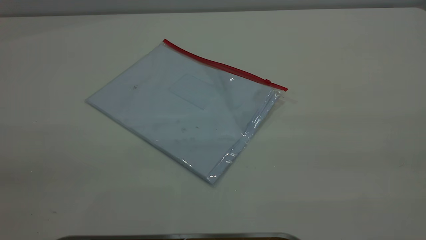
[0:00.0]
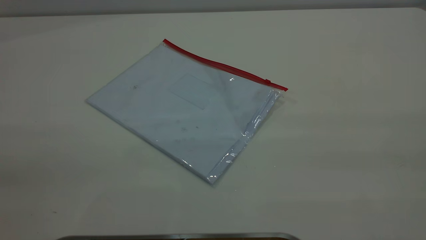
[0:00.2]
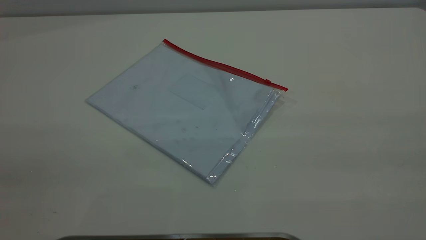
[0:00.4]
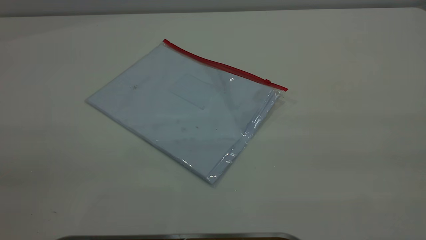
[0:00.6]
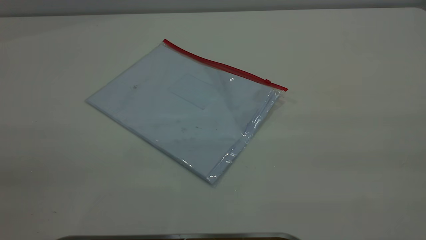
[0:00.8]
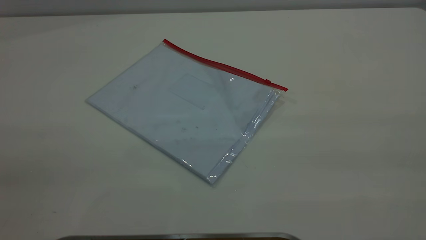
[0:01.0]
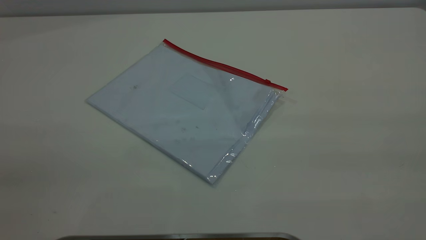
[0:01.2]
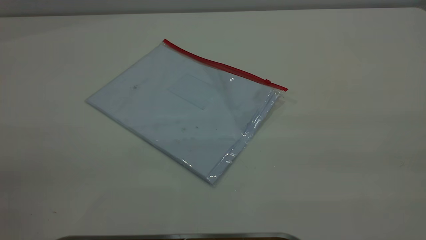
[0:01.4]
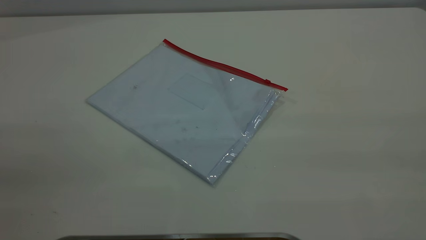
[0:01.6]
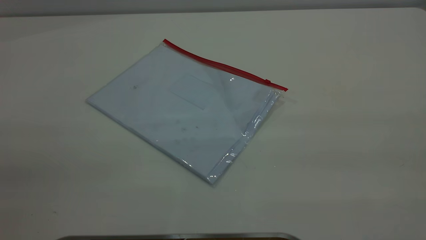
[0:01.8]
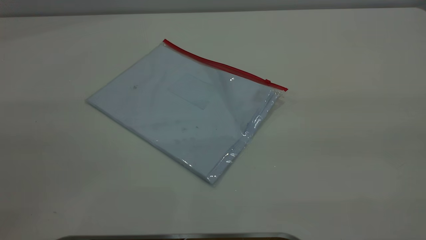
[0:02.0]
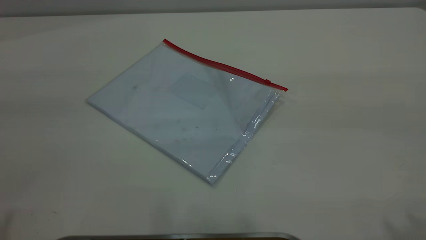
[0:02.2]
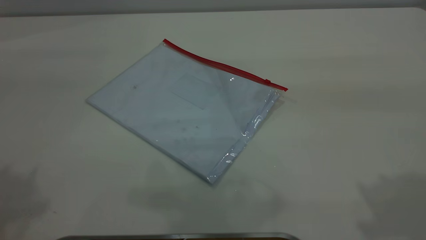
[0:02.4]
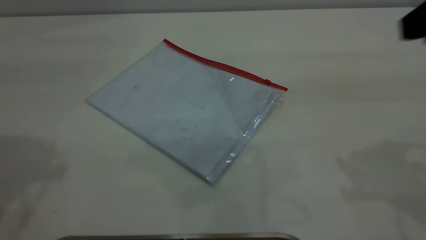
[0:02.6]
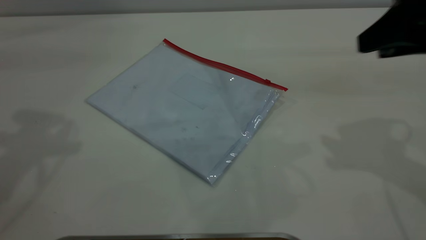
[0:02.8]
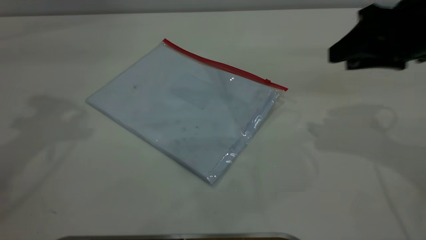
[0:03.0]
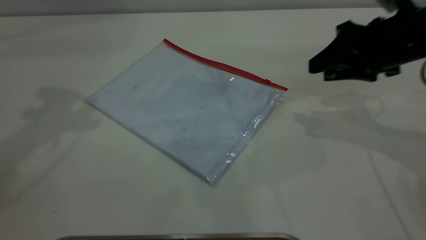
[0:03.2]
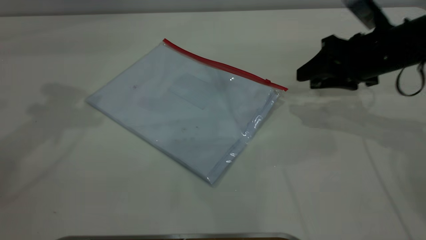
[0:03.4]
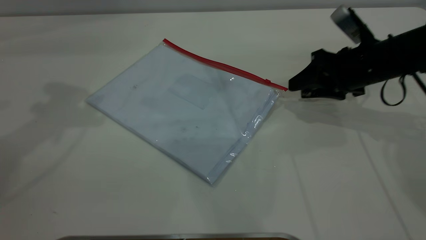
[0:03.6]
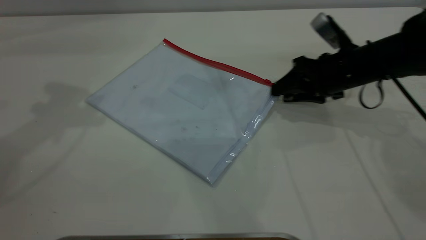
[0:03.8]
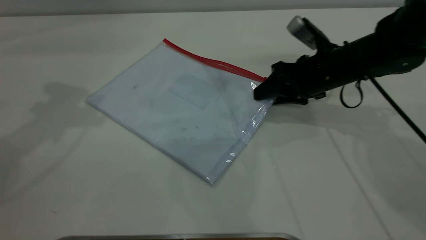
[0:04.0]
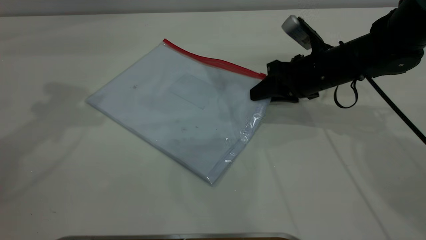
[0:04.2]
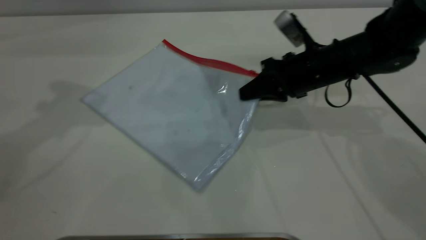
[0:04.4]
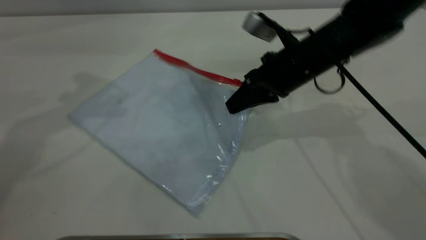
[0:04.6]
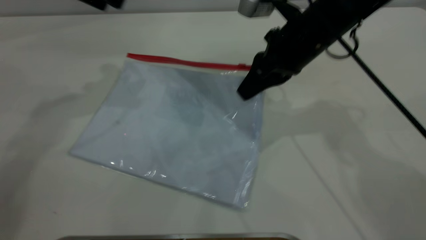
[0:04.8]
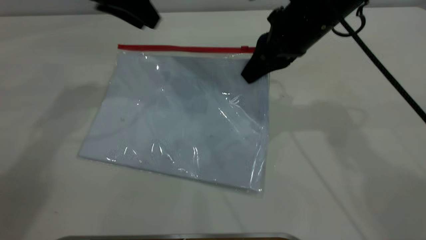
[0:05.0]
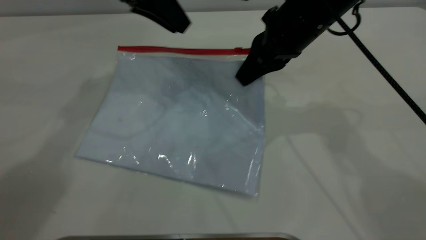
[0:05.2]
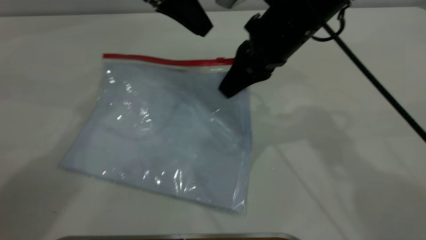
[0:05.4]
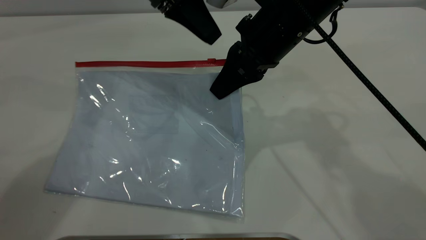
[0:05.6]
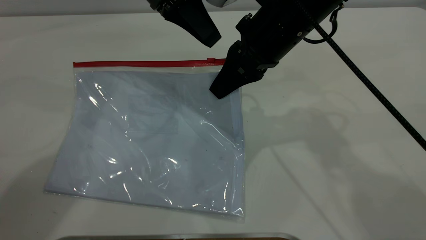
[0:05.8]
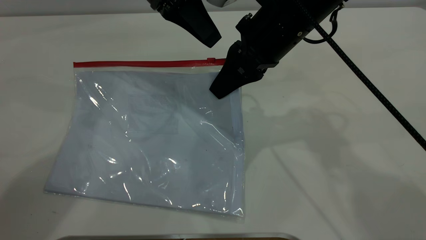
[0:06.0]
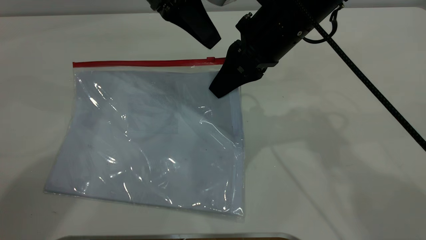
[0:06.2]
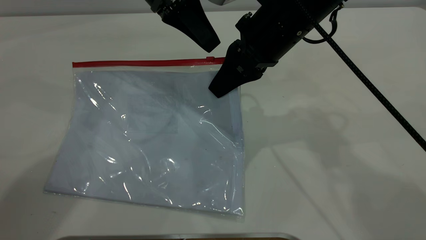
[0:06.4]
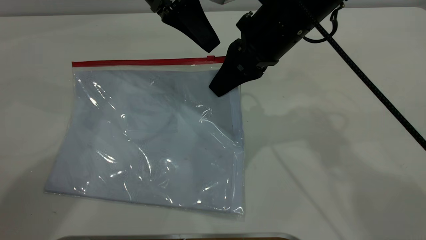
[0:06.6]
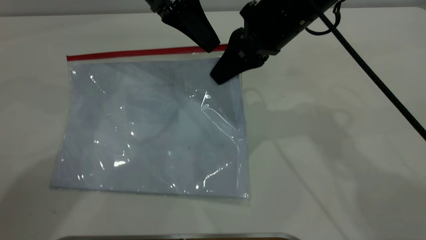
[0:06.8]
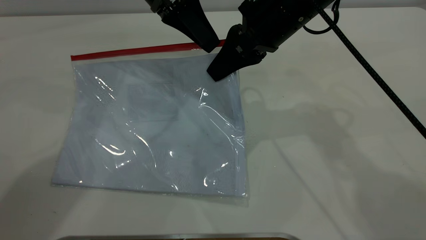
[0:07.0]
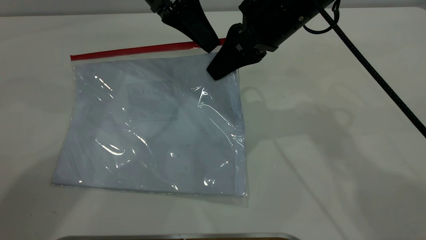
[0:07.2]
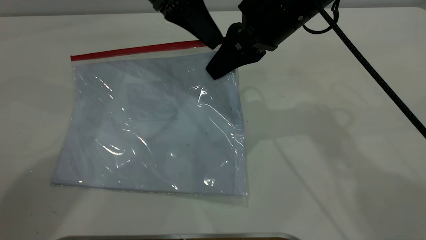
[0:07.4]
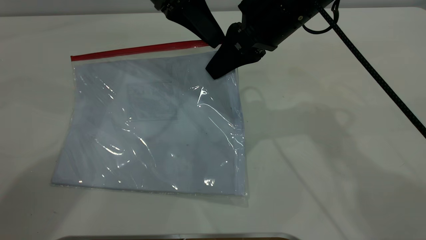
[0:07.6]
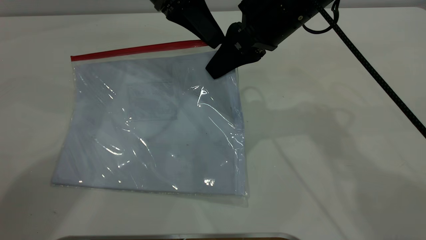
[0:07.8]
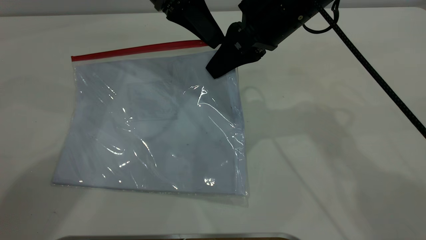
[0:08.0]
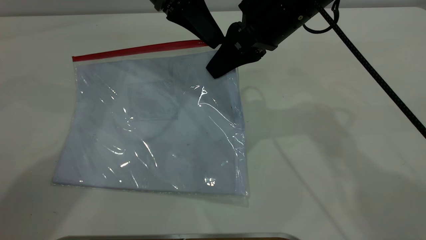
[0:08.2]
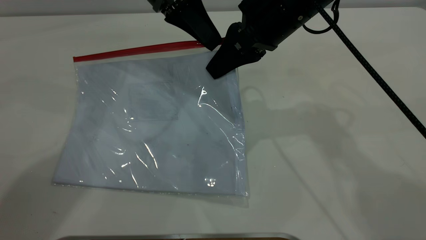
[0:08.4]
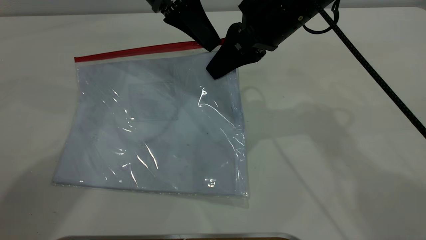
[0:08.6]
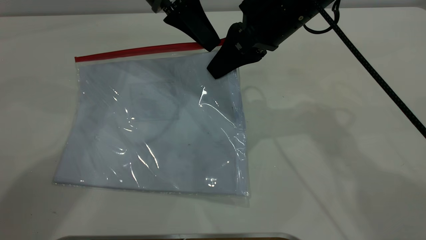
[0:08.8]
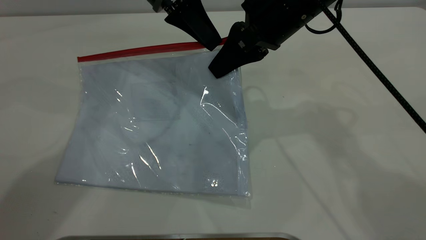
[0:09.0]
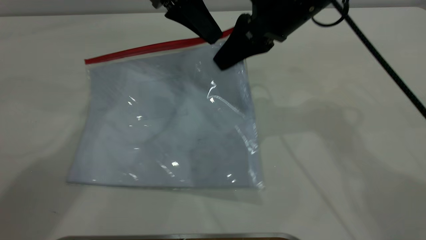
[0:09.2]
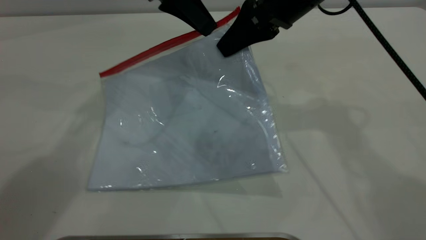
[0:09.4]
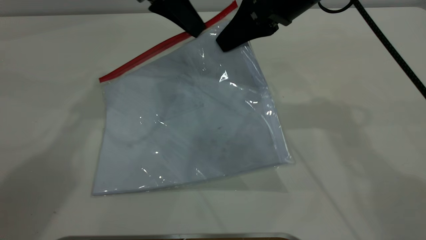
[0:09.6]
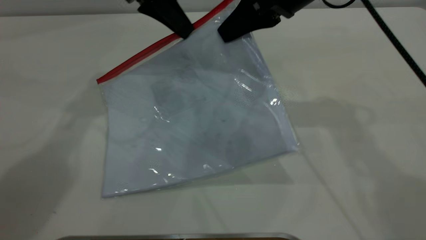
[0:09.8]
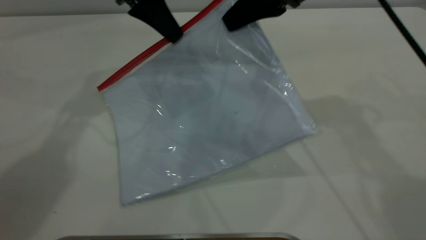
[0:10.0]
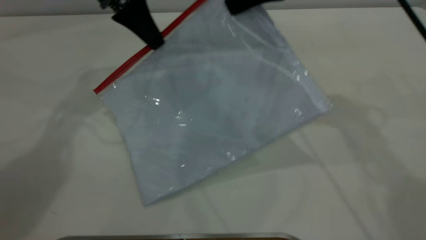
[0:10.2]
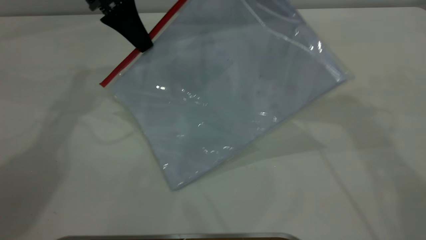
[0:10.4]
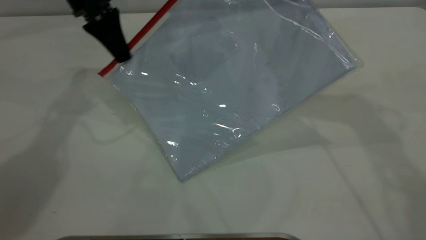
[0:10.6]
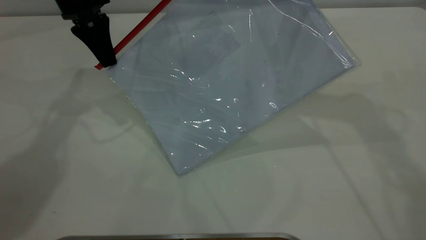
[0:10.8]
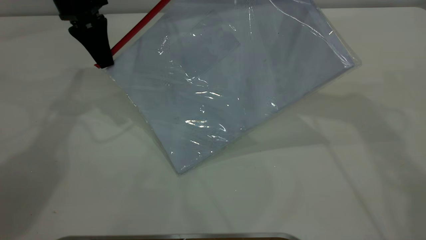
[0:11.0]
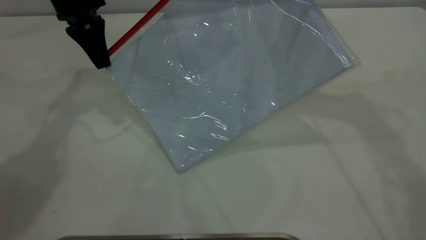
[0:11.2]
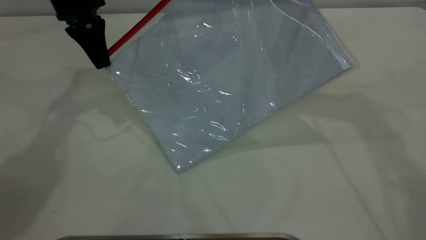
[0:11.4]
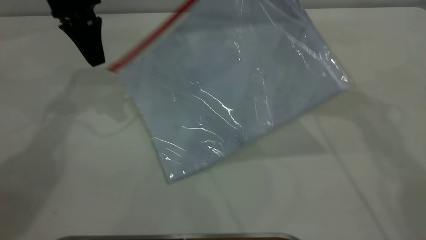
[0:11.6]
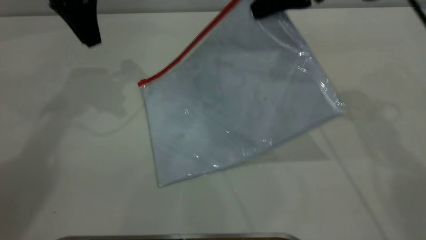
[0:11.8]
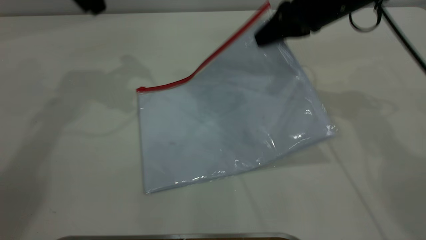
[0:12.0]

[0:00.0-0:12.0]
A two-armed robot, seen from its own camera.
Step, 0:00.0 to 0:04.8: Pick up the transparent plastic bag with the right gripper.
Step, 0:05.0 to 0:11.6: Pulling up the zipper on the transparent plastic bag with the left gripper to close it.
0:00.0 to 0:01.6: Both grippers stay put.
0:01.6 to 0:03.0: The right gripper goes approximately 35 cm forward and downward.
0:03.0 to 0:04.4: The right gripper goes some 15 cm downward, to the left and forward, and closes.
0:04.4 to 0:06.0: The left gripper travels to the right and downward by approximately 20 cm, while the right gripper moves upward and to the left, some 15 cm.
0:06.0 to 0:07.6: The grippers stay close to where they were, moving slightly.
0:07.6 to 0:09.0: The left gripper closes.
0:09.0 to 0:10.4: The right gripper moves upward and to the right, roughly 10 cm. The left gripper heads to the left, covering roughly 10 cm.
0:10.4 to 0:12.0: The left gripper is displaced upward by some 10 cm, and opens, while the right gripper travels downward by approximately 10 cm.

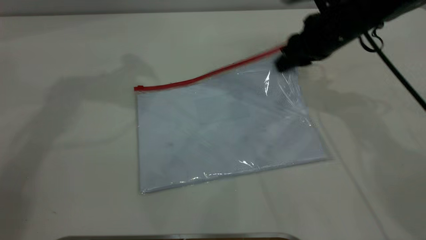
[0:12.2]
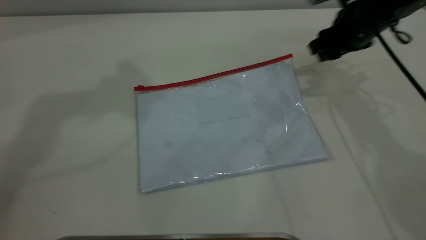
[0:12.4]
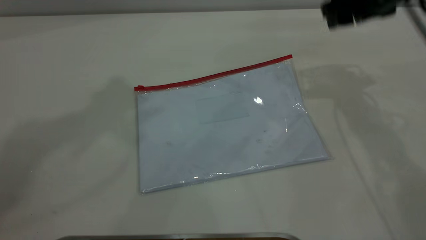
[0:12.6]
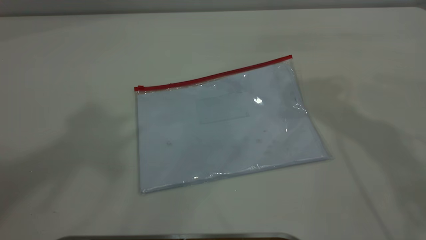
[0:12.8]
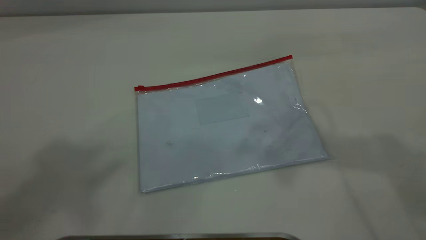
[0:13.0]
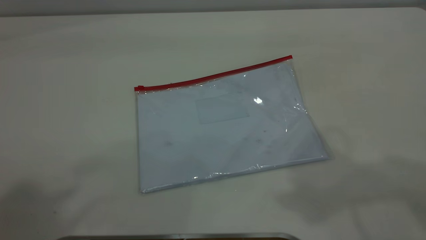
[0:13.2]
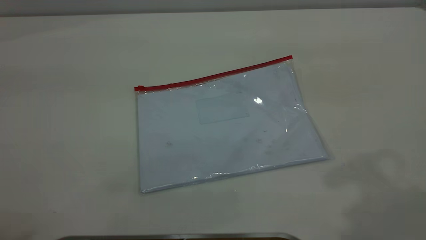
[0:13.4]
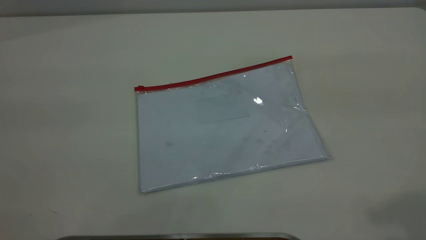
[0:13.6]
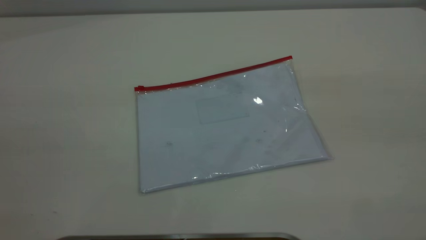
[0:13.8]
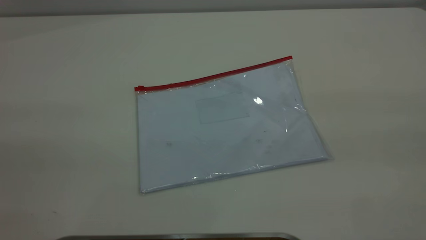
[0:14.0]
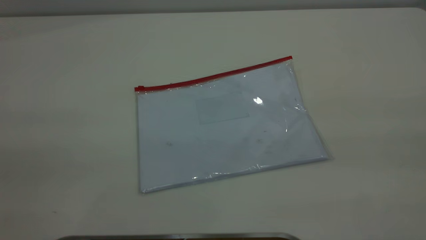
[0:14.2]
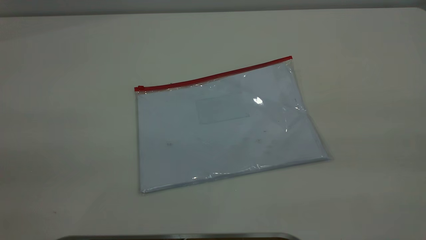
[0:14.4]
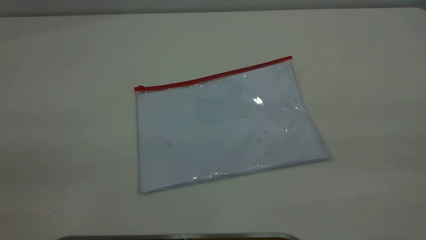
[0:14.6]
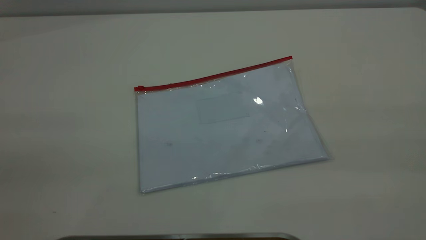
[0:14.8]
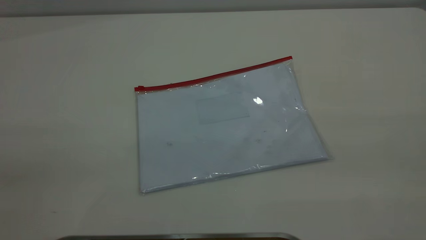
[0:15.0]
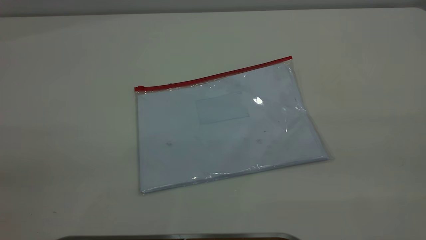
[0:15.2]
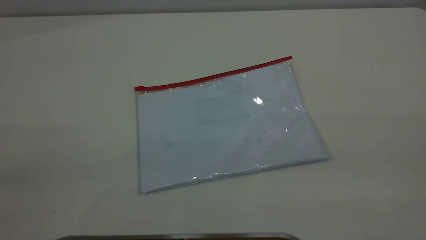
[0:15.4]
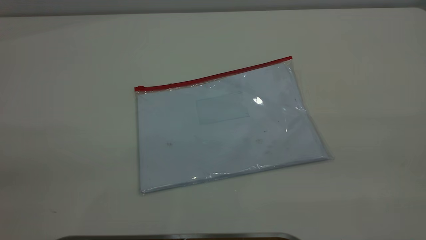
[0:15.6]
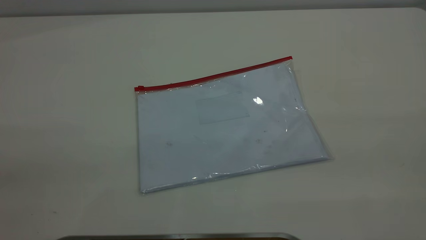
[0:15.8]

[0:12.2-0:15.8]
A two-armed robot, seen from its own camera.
Step, 0:12.2 to 0:12.6: Place the transparent plastic bag.
0:12.2 to 0:14.0: The right gripper is displaced backward and upward by roughly 40 cm. Meanwhile the left gripper moves backward, roughly 40 cm.
